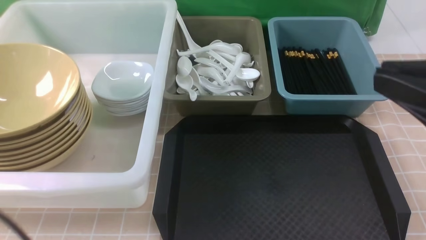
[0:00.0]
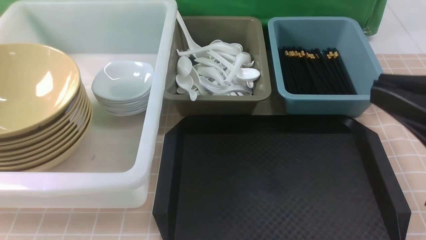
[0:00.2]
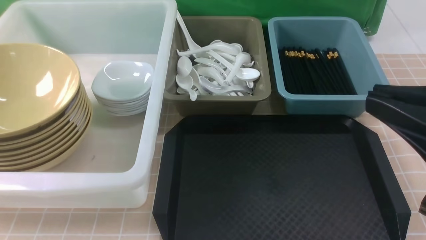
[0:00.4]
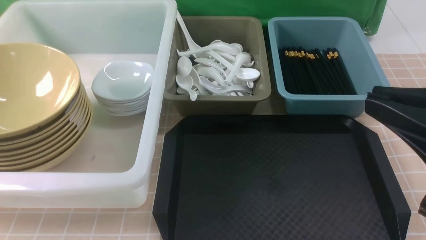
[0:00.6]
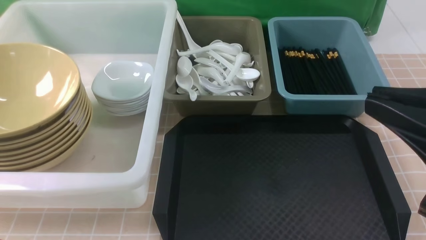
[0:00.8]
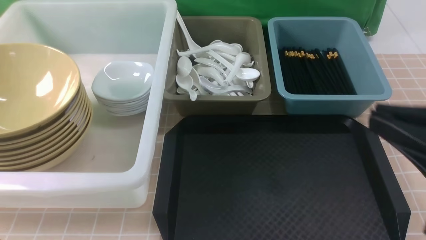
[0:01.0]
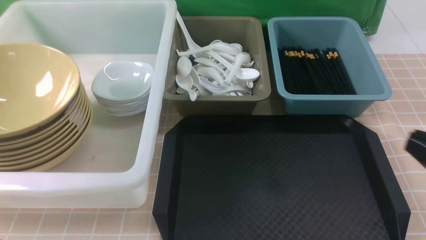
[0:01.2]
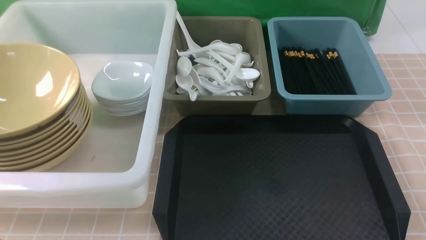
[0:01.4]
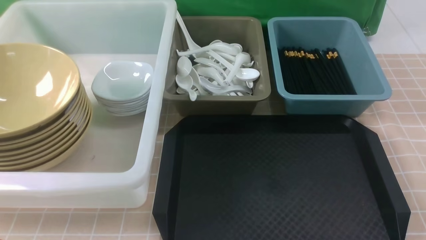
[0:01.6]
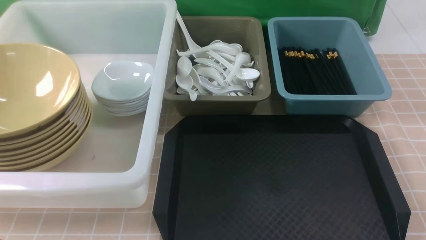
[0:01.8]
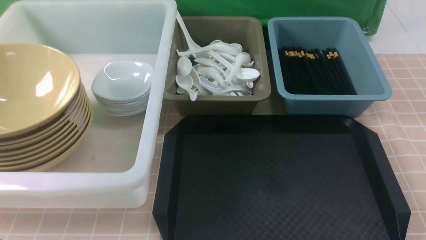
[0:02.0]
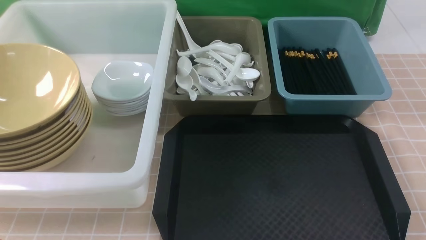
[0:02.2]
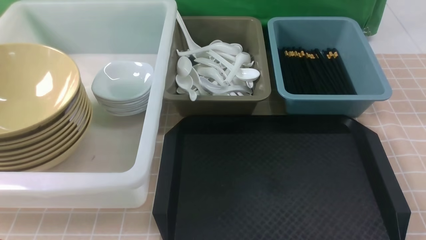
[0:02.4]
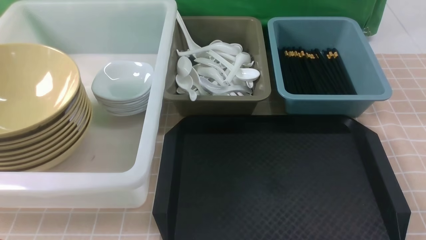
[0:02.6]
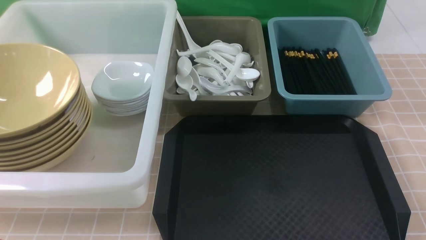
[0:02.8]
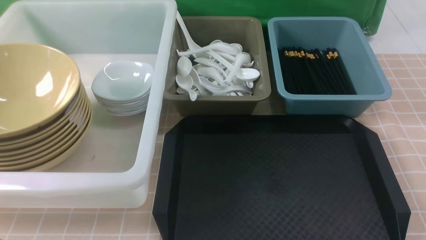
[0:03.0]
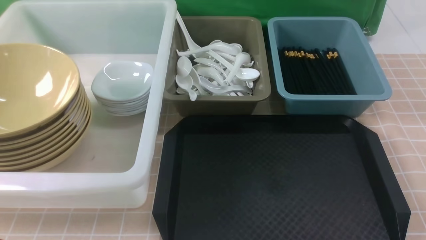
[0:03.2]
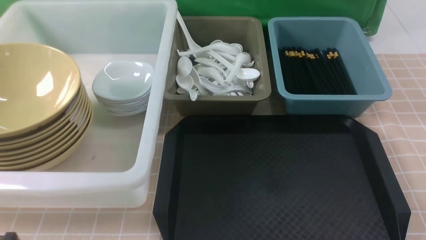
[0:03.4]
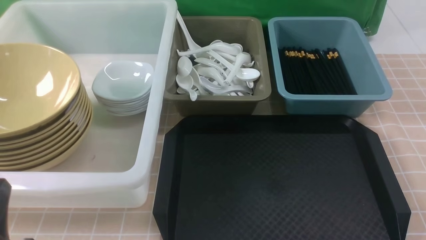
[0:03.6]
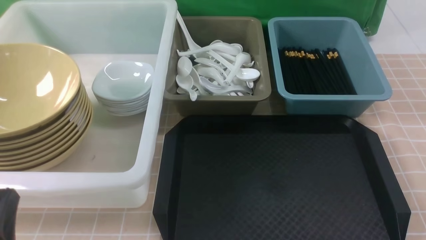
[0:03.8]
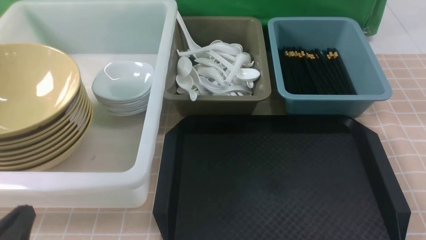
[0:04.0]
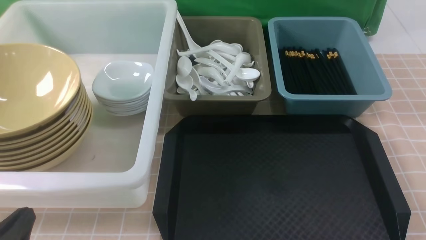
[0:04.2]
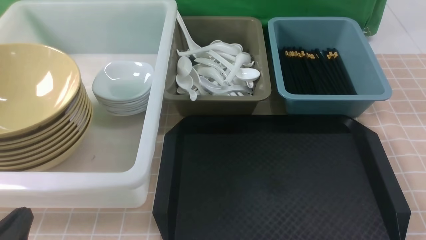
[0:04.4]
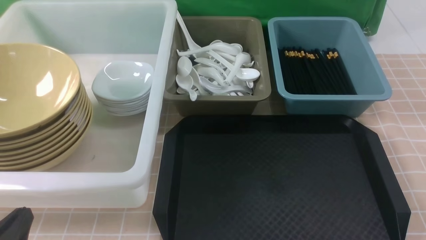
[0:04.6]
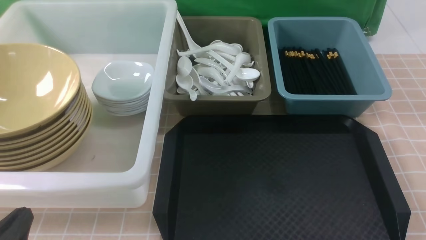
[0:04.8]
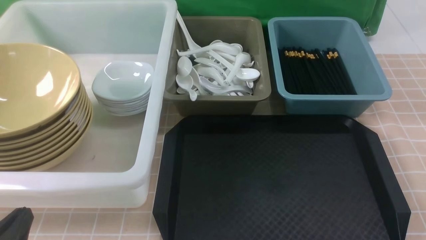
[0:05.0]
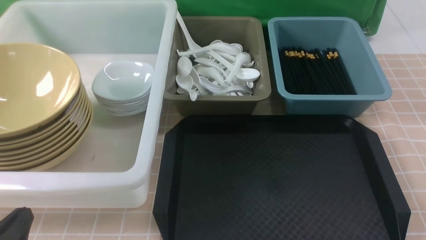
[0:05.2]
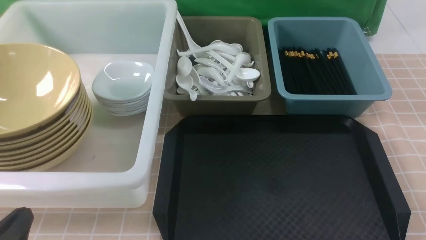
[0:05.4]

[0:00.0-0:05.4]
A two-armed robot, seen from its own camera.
Task of the whole recording: on brown table put chopsticks spoon bowls plates into blue grey white boxes.
0:00.0 to 0:01.4: The right gripper heads downward and to the right, covering roughly 15 cm.
0:02.8 to 0:04.0: The left gripper goes about 10 cm downward.
0:04.0 to 0:05.4: Both grippers stay put.
